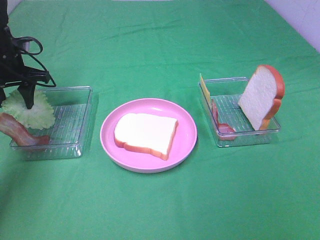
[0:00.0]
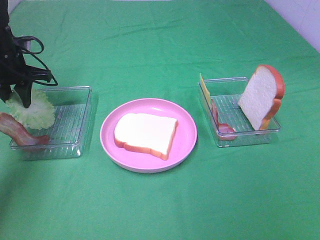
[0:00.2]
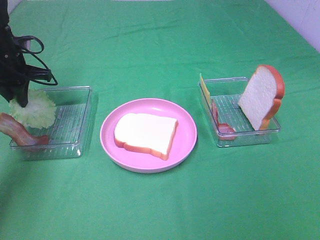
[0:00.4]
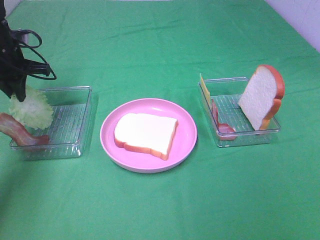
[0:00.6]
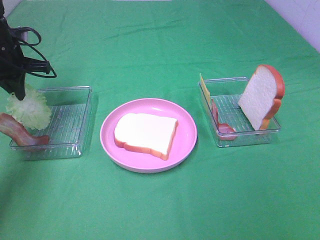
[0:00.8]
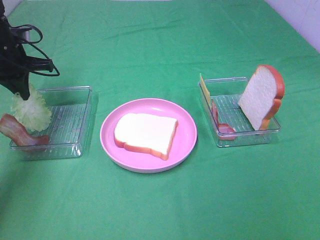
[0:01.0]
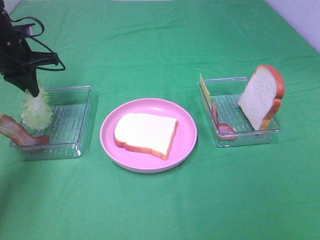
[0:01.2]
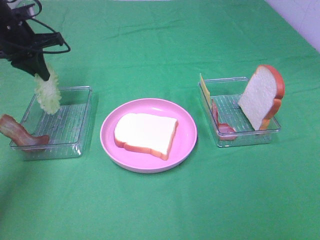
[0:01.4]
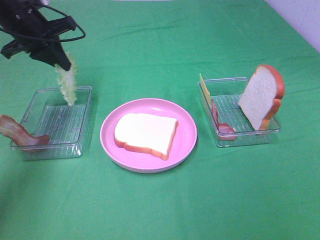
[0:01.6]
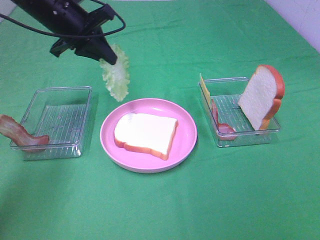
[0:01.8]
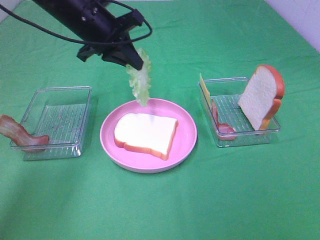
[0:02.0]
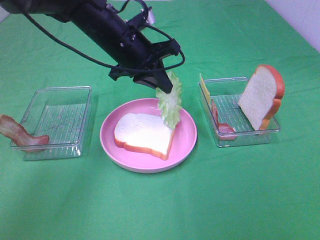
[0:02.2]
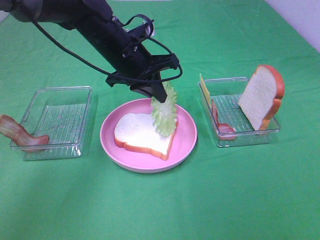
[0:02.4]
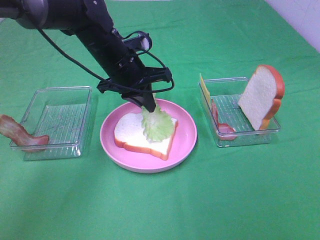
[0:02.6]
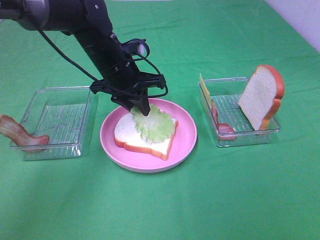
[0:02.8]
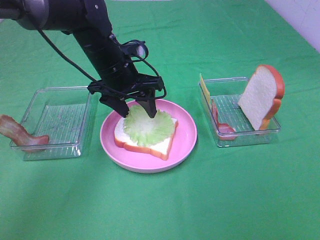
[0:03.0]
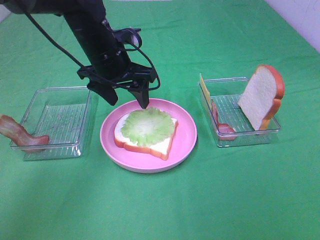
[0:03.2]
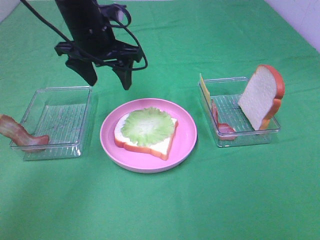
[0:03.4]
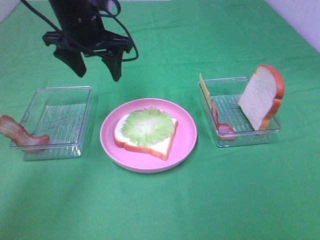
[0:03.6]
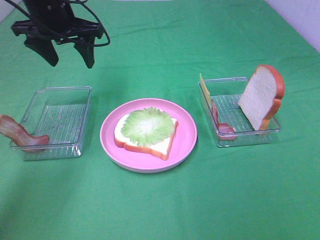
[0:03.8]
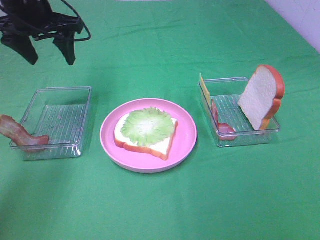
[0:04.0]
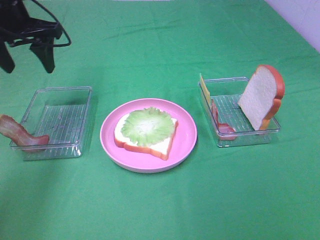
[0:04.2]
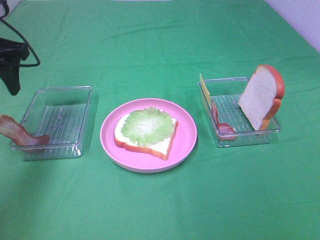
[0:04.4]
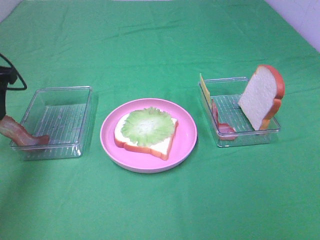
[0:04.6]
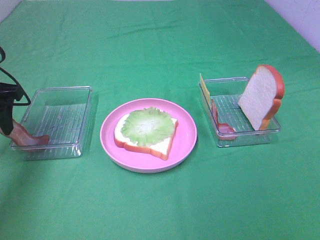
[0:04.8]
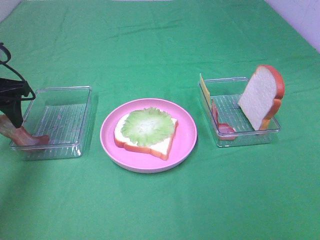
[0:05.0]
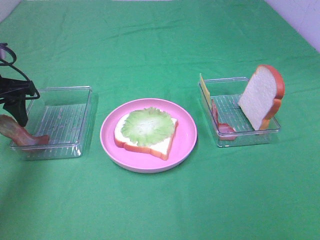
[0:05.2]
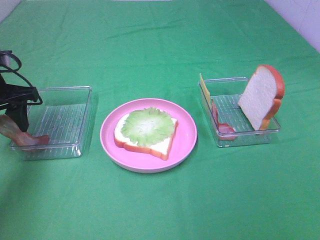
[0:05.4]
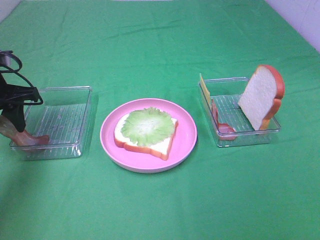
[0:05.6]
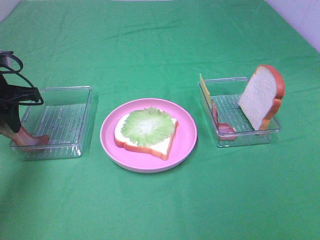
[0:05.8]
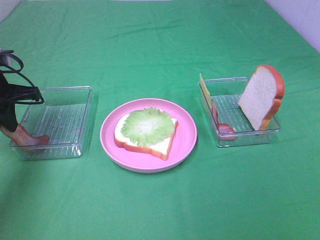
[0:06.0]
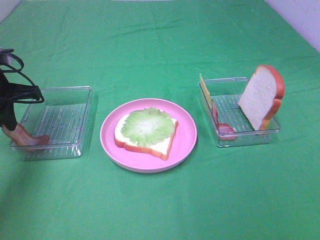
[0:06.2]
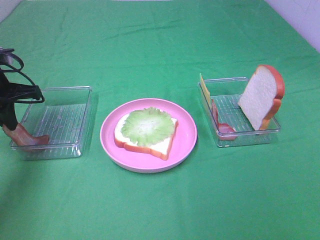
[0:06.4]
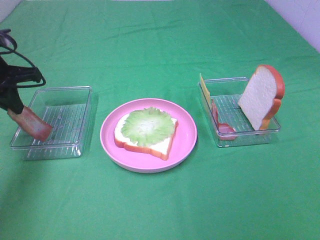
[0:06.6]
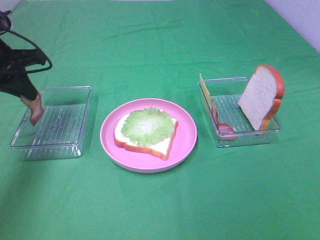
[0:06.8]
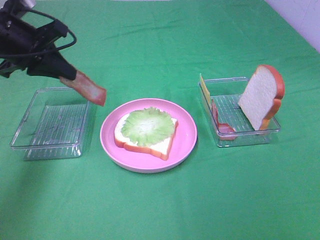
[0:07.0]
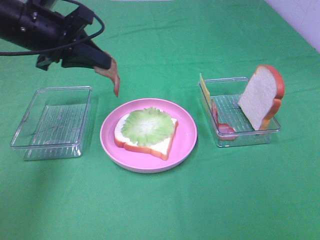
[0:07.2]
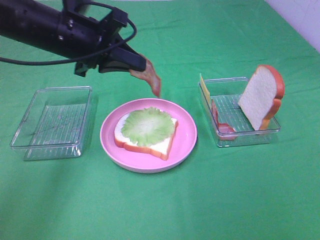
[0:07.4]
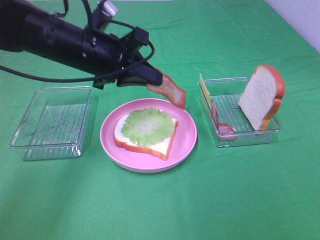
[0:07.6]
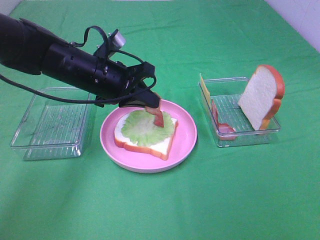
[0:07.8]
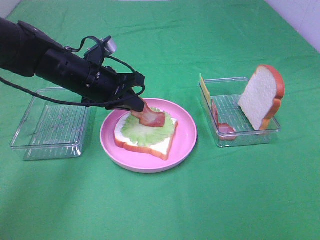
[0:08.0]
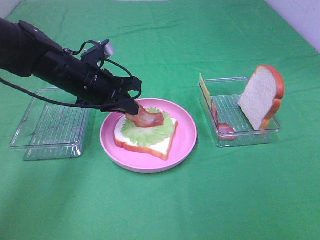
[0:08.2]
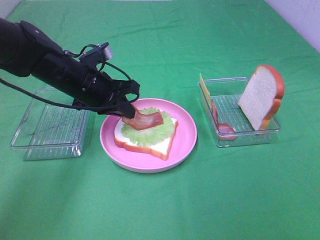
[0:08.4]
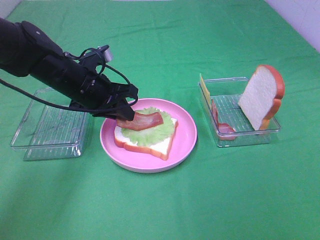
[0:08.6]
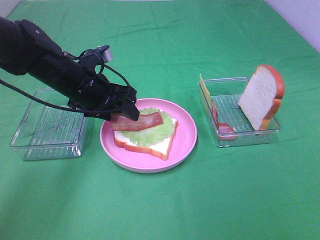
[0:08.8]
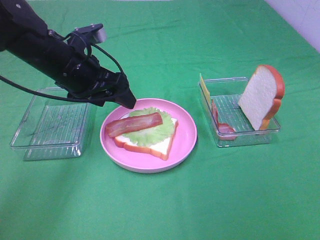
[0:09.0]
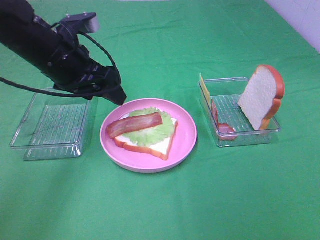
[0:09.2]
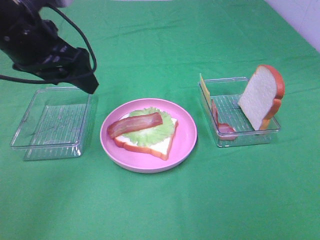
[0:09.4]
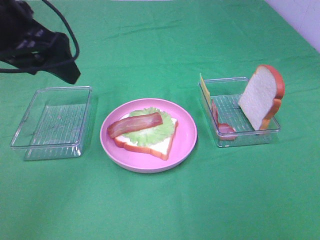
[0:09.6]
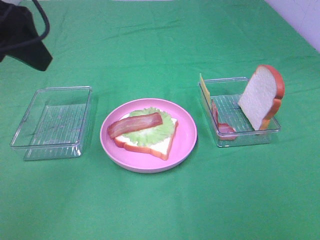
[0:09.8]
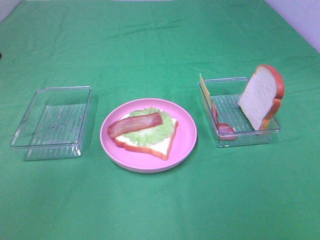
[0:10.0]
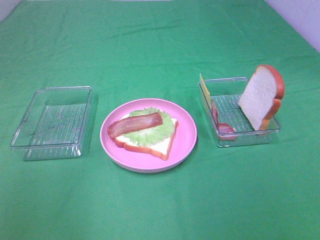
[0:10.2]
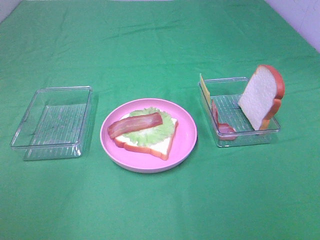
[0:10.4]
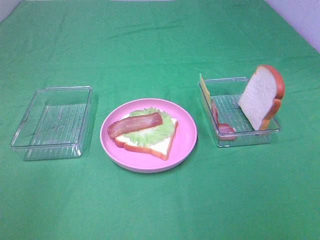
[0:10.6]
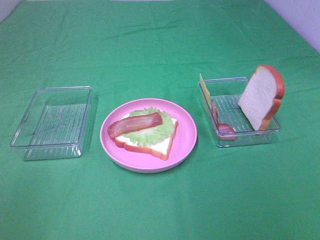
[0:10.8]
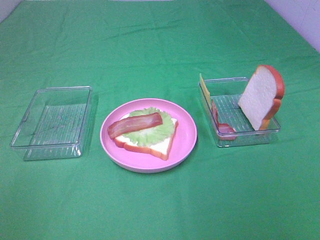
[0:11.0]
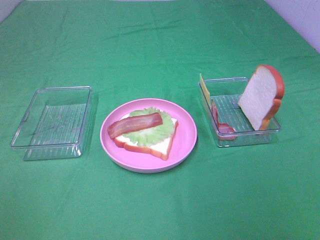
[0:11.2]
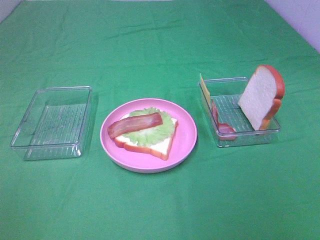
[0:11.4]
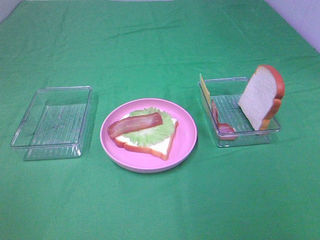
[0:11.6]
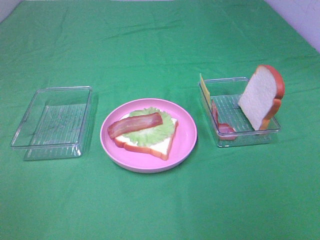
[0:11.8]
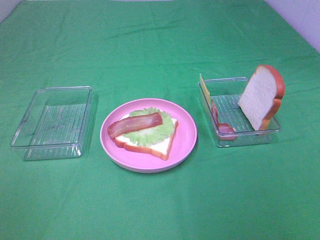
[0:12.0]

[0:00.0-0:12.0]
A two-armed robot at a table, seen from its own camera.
Task of the whole recording: Make sandwiches.
Step, 0:01.0 to 0:03.2: Left hand:place the lettuce slice on the bread slice.
Step, 0:03.4 to 0:05.8: Left hand:grab the bacon.
Step, 0:06.0 to 0:09.0: Left hand:place bacon on lettuce slice.
0:00.0 to 0:01.6: The left gripper shifts some 10 cm upward and to the right, and closes up.
0:01.6 to 0:03.0: The left gripper shifts approximately 15 cm to the right and downward, and opens up.
0:03.0 to 0:04.4: The left gripper moves to the left and upward, roughly 20 cm.
0:04.4 to 0:06.0: The left gripper shifts roughly 10 cm downward, and closes its fingers.
0:06.0 to 0:07.6: The left gripper moves to the right, some 20 cm.
0:07.6 to 0:09.0: The left gripper opens.
0:09.0 to 0:10.4: The left gripper heads backward, upward and to the left, covering roughly 35 cm.

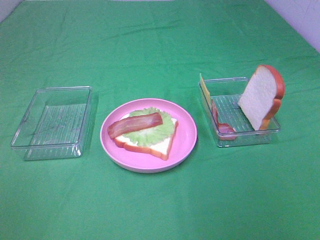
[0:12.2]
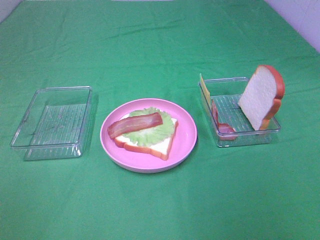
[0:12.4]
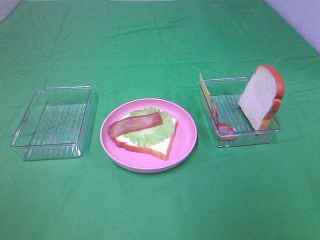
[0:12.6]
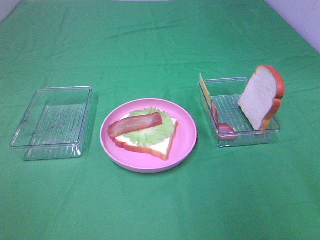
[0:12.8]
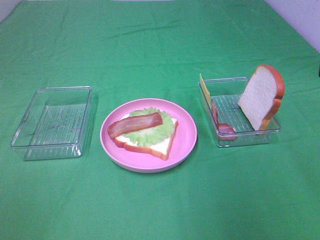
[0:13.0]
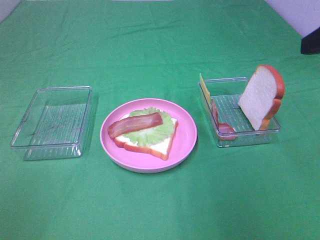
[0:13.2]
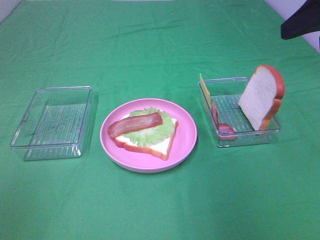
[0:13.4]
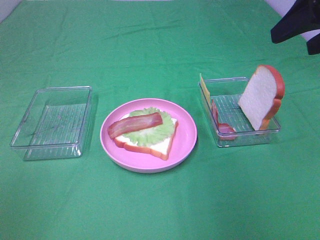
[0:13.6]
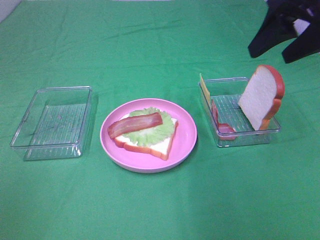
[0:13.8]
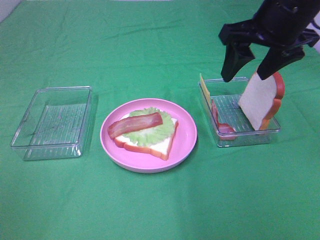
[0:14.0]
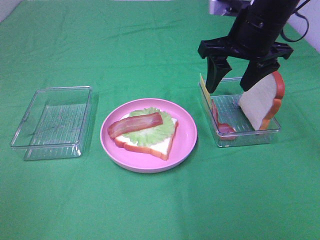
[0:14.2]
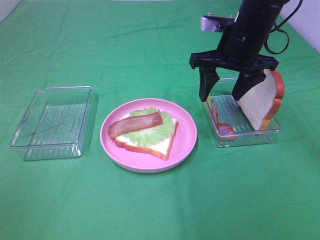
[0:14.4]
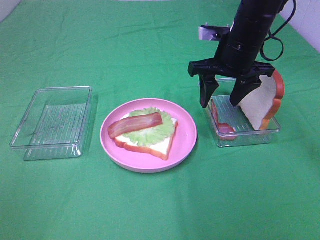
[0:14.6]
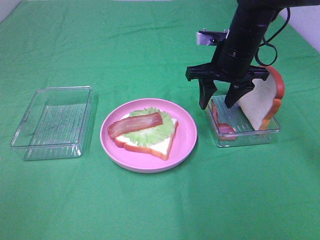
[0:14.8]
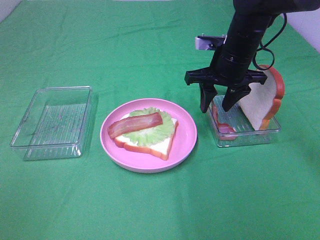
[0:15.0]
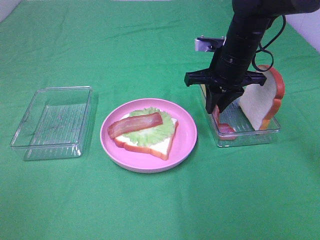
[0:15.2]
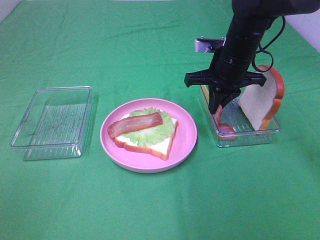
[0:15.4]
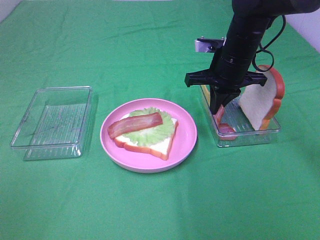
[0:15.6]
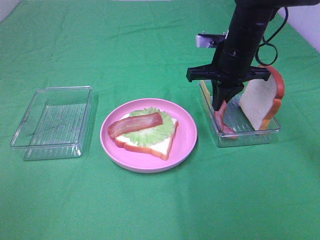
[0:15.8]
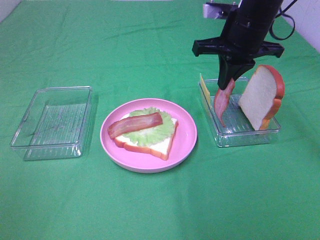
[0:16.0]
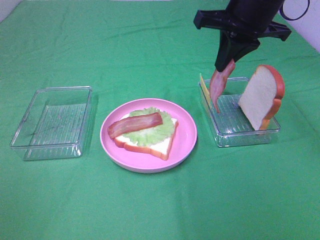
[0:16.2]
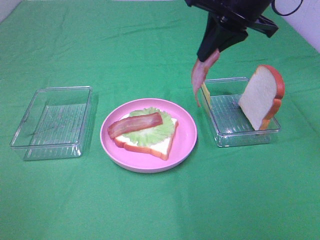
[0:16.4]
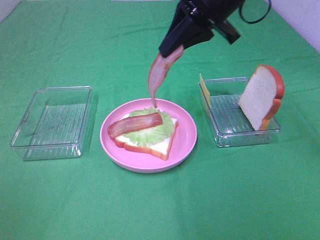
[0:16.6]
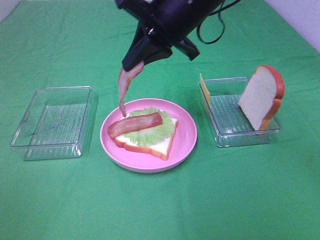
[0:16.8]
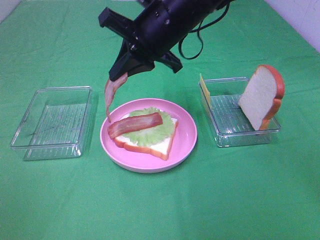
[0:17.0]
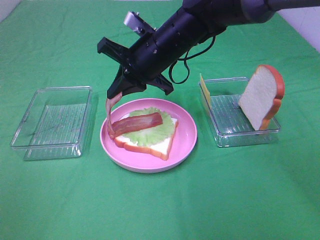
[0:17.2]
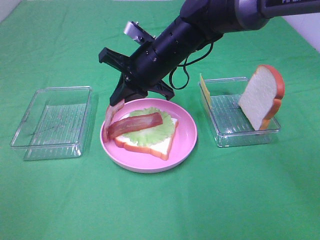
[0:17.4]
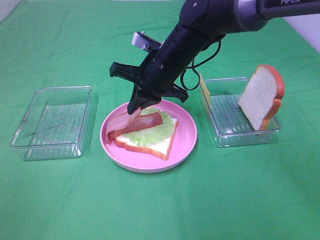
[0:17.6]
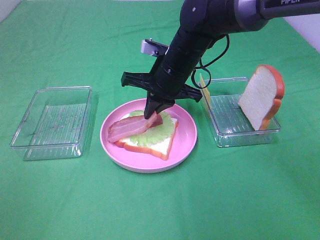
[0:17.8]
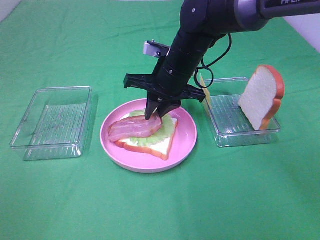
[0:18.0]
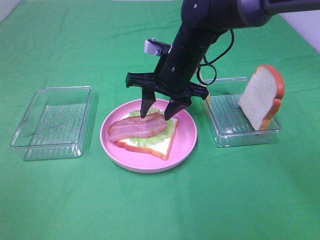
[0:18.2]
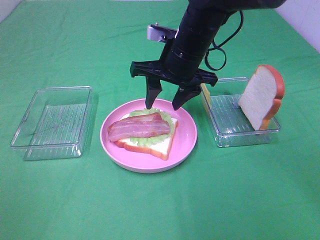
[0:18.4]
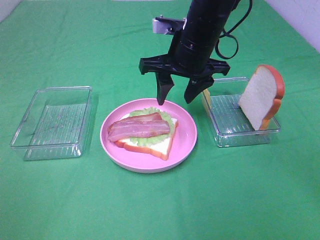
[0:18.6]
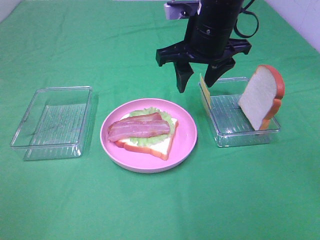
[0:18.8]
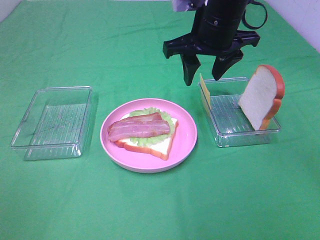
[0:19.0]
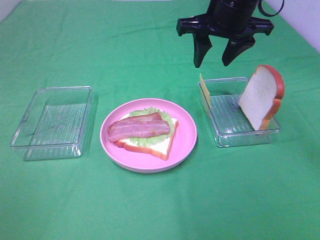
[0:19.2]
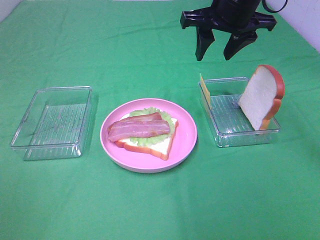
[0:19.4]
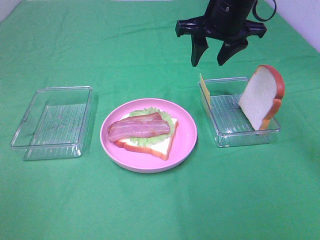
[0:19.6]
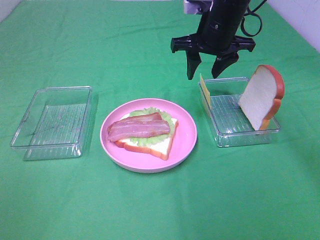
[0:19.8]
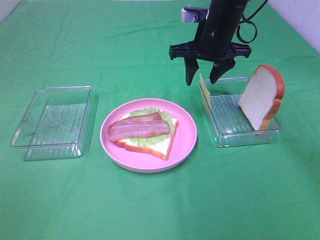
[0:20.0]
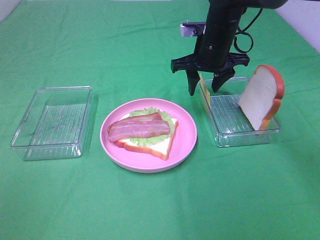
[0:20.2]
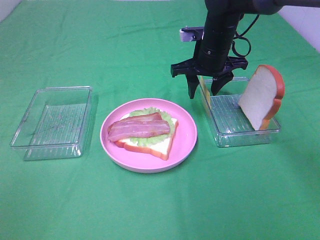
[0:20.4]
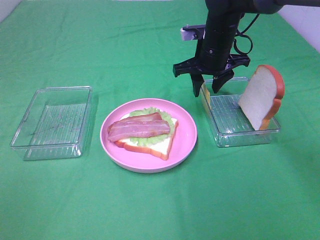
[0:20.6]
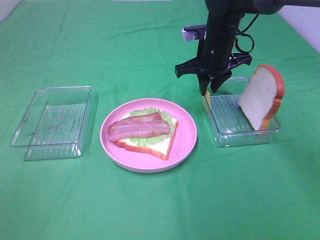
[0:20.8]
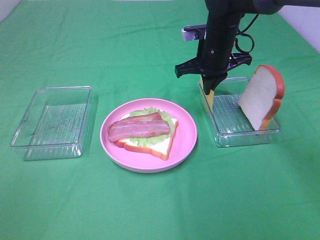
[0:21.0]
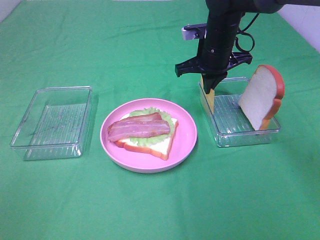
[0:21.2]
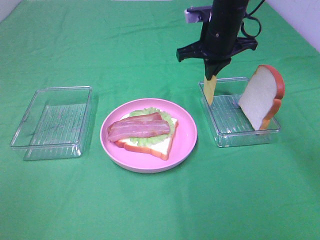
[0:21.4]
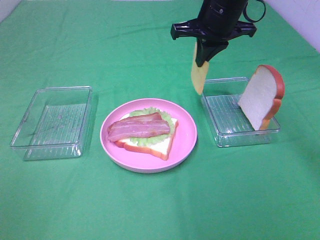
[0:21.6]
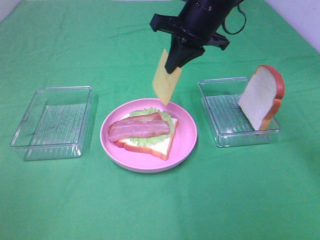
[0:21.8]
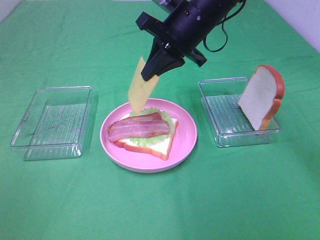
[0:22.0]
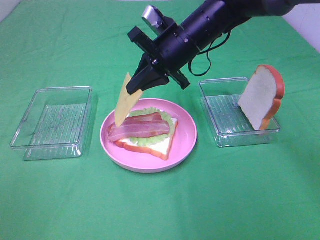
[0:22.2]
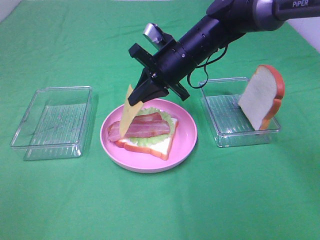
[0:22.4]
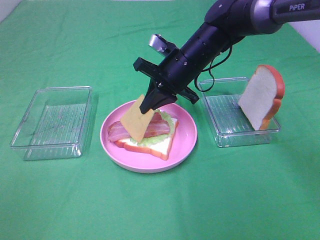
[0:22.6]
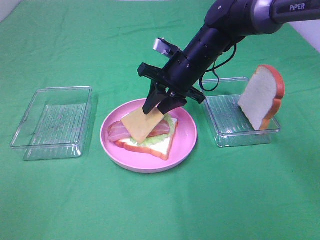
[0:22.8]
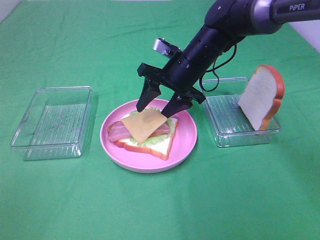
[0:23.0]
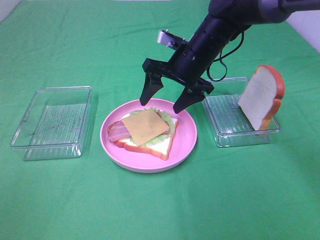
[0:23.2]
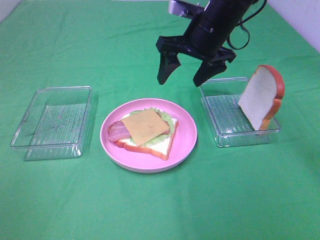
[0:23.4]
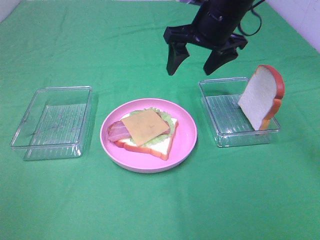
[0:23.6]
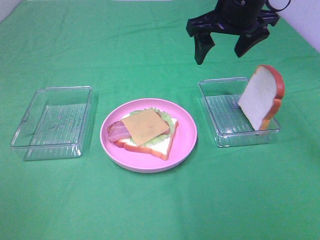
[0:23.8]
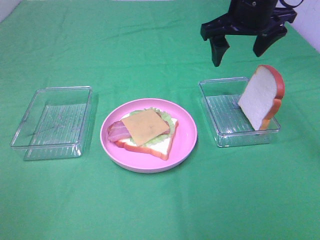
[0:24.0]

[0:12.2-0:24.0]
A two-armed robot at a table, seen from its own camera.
Task of the whole recording: Make sandwiches.
Step, 0:12.2 to 0:15.6: Right hand:grab the bacon.
Step, 0:15.8 to 0:18.4: Right hand:place bacon on bacon.
Step, 0:18.6 to 0:21.0: Right hand:grab the cheese slice.
Step, 0:21.2 to 0:23.2: Right hand:place the cheese slice on top of the bacon.
0:12.2 to 0:13.6: The right gripper travels forward by about 25 cm.
0:13.6 to 0:15.2: The right gripper shifts roughly 25 cm downward, forward and to the left, and closes its fingers.
0:15.2 to 0:16.6: The right gripper moves upward and backward, approximately 15 cm.
0:16.6 to 0:18.2: The right gripper goes roughly 15 cm downward, and opens up.
0:18.2 to 0:19.6: The right gripper travels upward and to the right by about 10 cm.
0:19.6 to 0:21.0: The right gripper goes about 10 cm downward, and closes its fingers.
0:21.0 to 0:22.6: The right gripper moves to the left, some 5 cm, and moves some 10 cm upward and comes back.
0:22.6 to 0:24.0: The right gripper is displaced upward and to the right by approximately 15 cm, and opens up.
